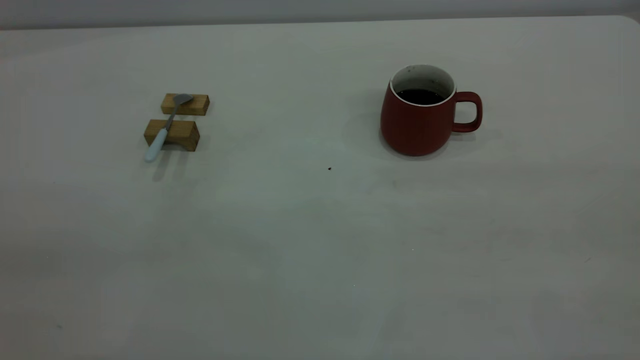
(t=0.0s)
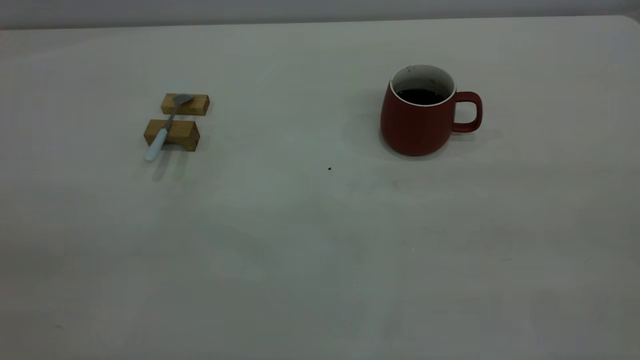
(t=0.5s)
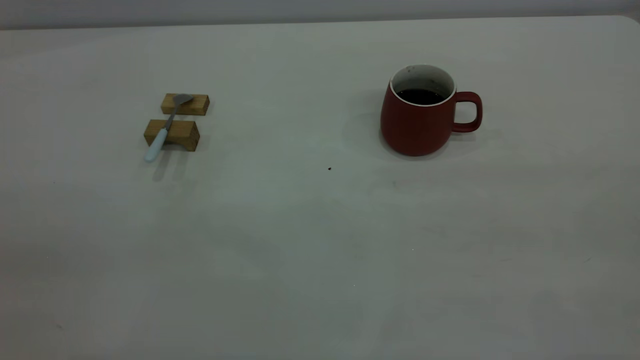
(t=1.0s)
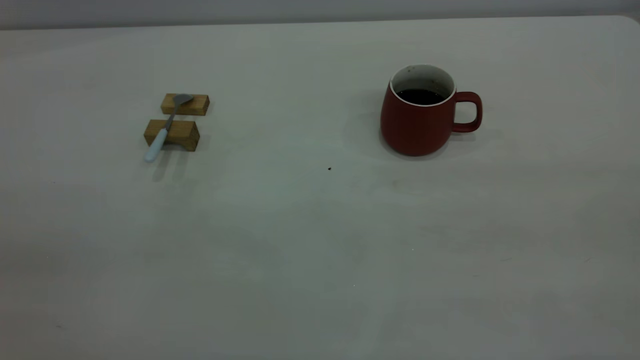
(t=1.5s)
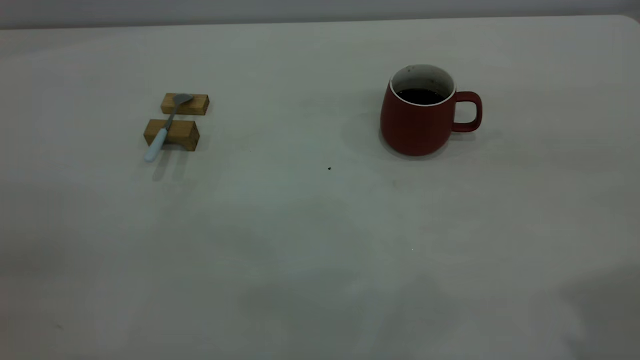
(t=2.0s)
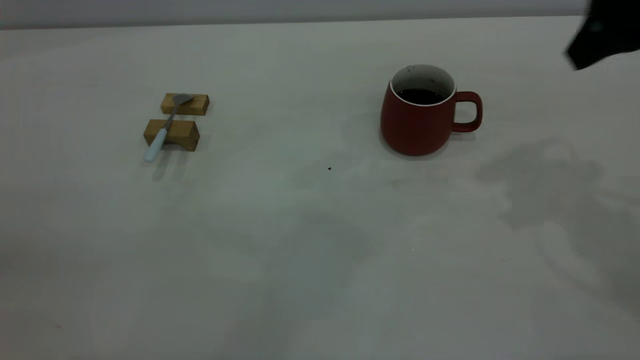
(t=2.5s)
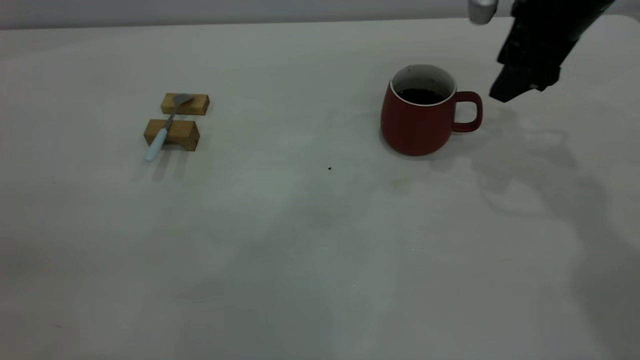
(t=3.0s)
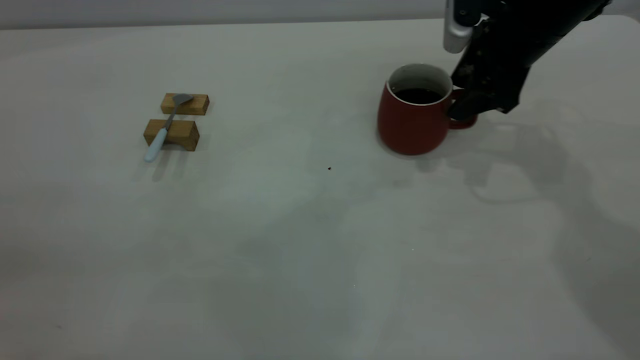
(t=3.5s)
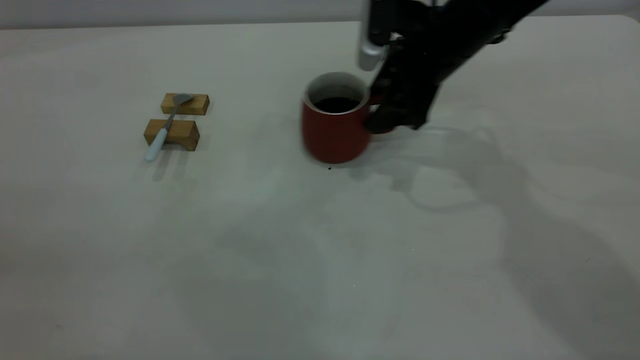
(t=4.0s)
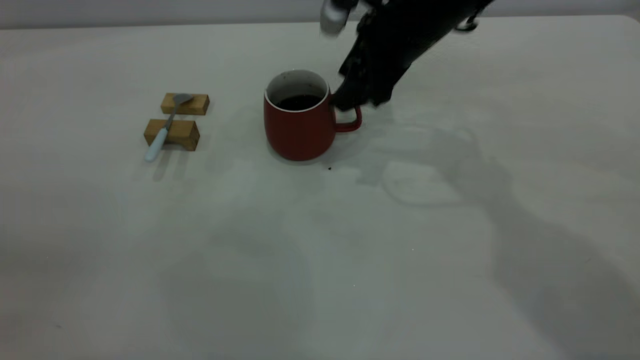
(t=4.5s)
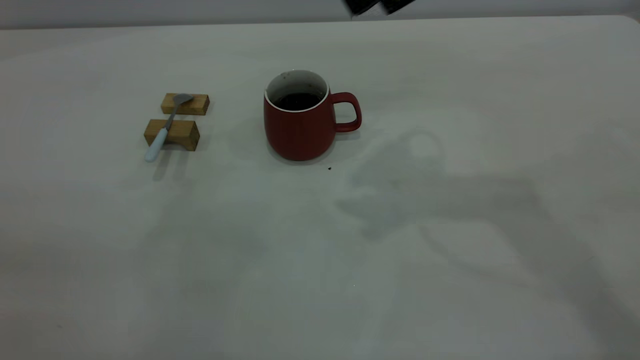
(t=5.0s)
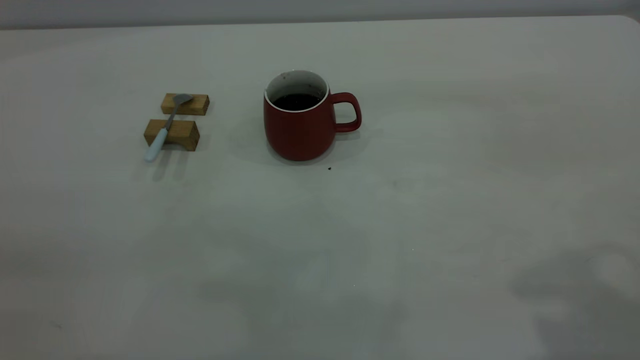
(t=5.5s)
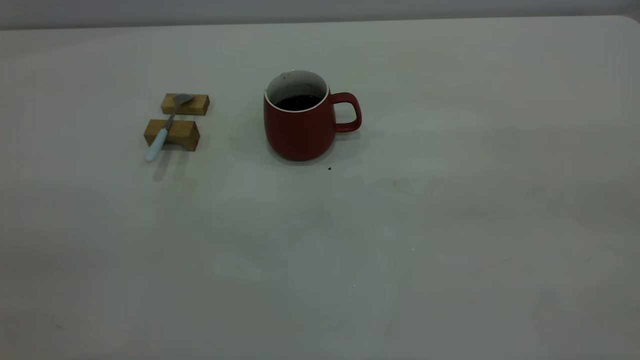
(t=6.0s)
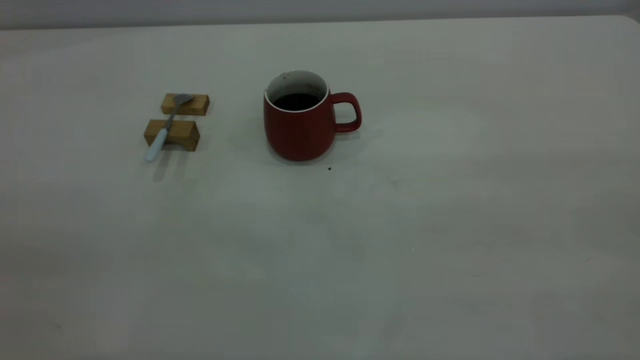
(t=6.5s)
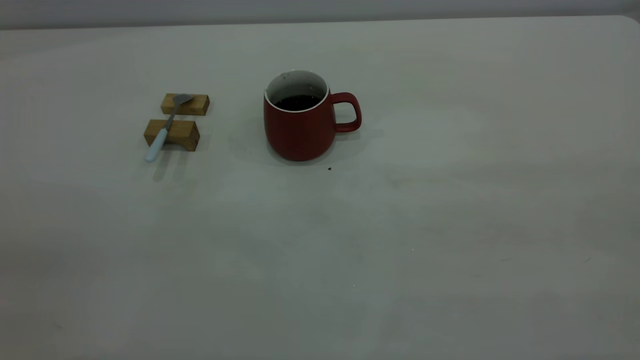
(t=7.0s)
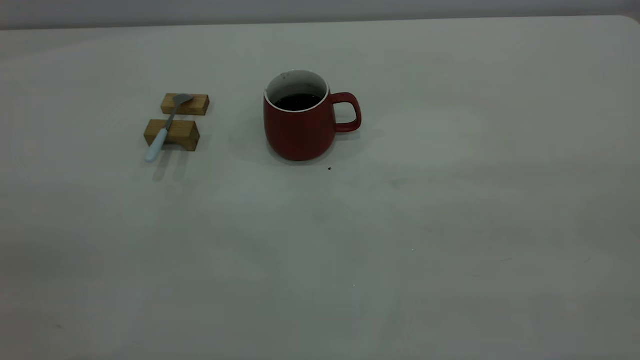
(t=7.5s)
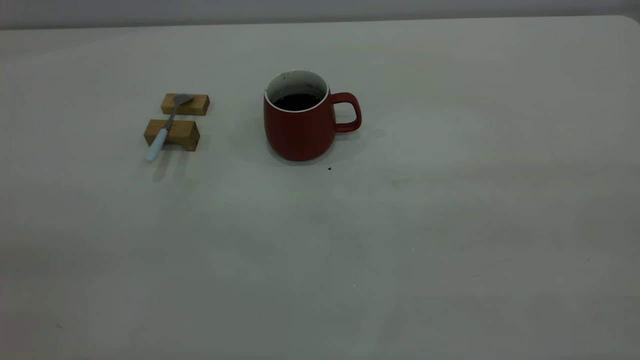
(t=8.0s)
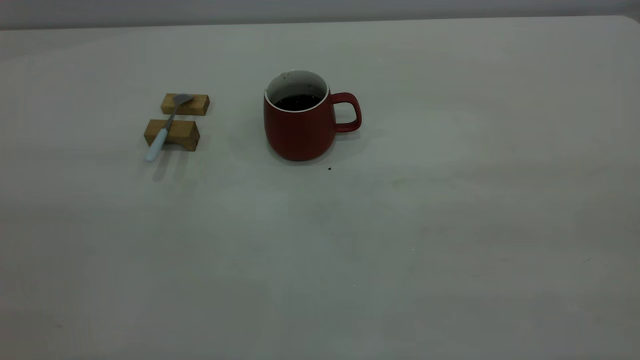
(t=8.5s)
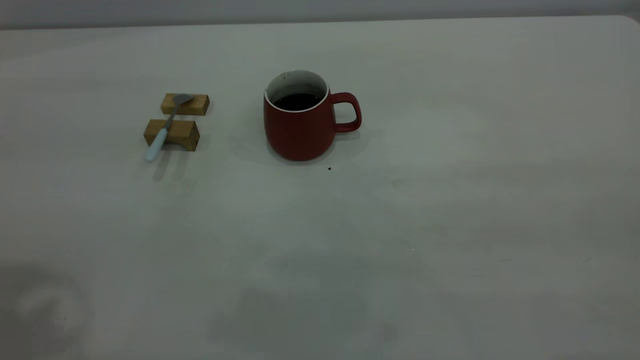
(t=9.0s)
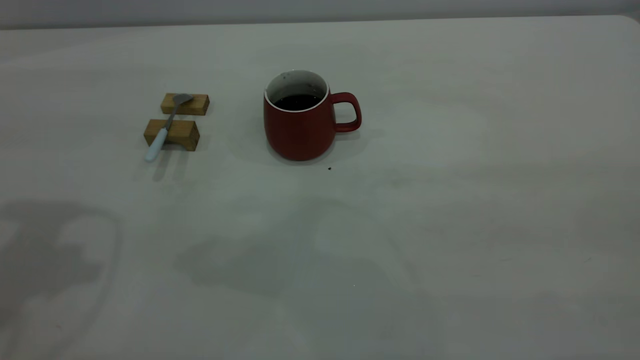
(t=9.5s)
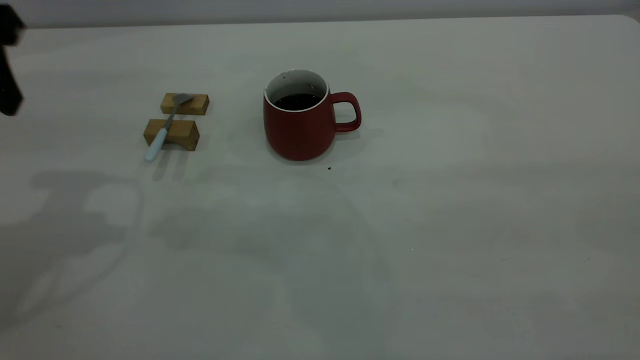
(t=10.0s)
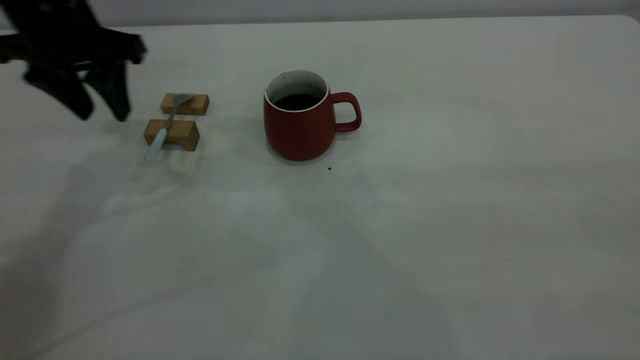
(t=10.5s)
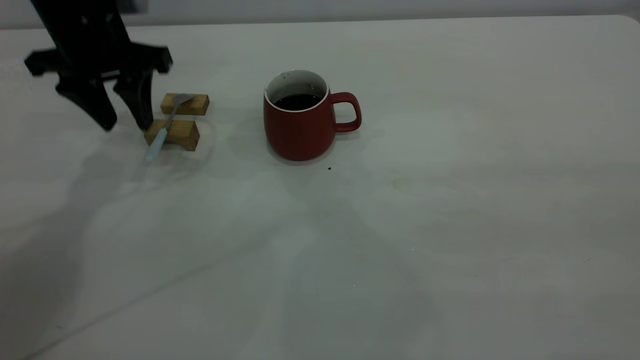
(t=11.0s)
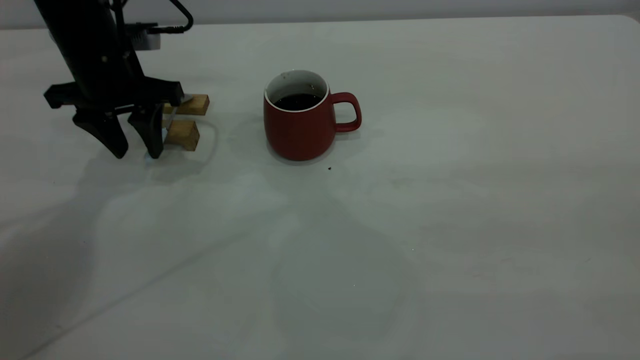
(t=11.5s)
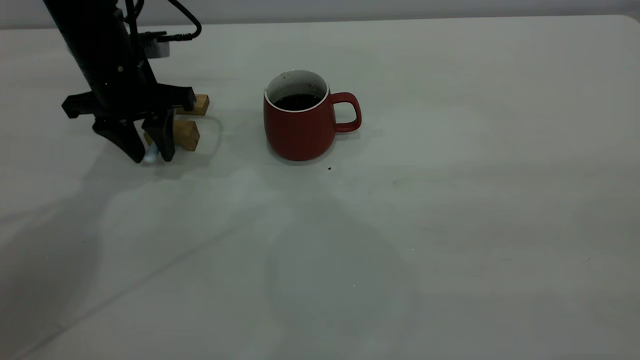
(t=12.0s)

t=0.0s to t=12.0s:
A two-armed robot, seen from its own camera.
Step, t=0.0s to t=4.5s: Move the cup with coffee to the center of view.
t=2.0s to t=4.0s: The right gripper heads forward, downward and to the left, covering some 40 cm.
t=4.0s to t=6.0s: The right gripper goes approximately 50 cm backward, upward and to the right.
t=8.0s to t=10.0s: The left gripper travels forward by roughly 30 cm, and opens up.
t=10.0s to t=12.0s: The left gripper heads downward and forward, covering roughly 20 cm.

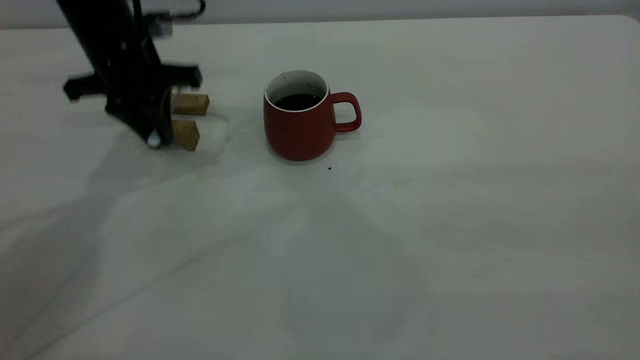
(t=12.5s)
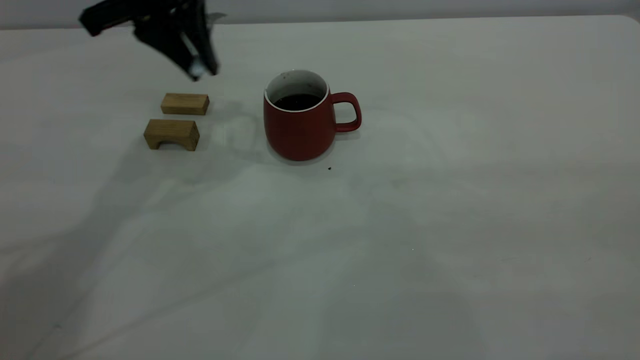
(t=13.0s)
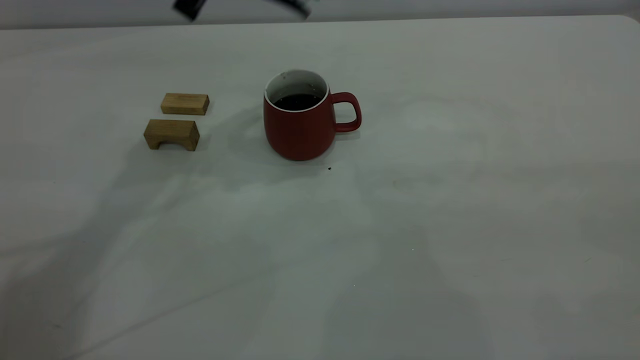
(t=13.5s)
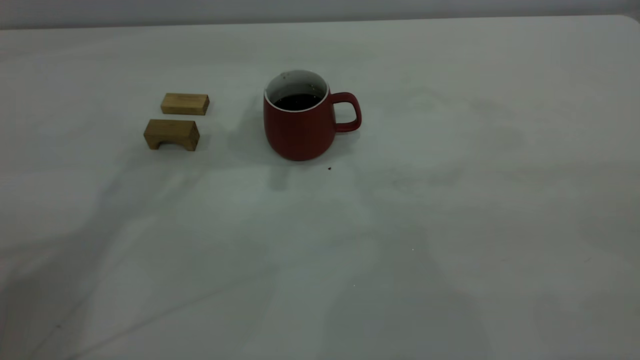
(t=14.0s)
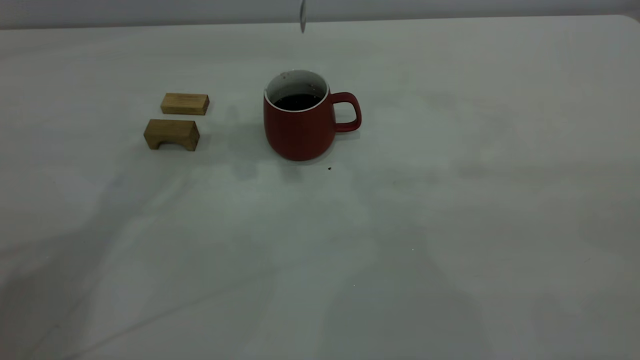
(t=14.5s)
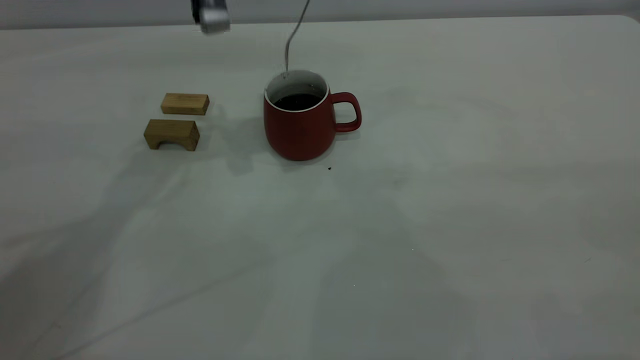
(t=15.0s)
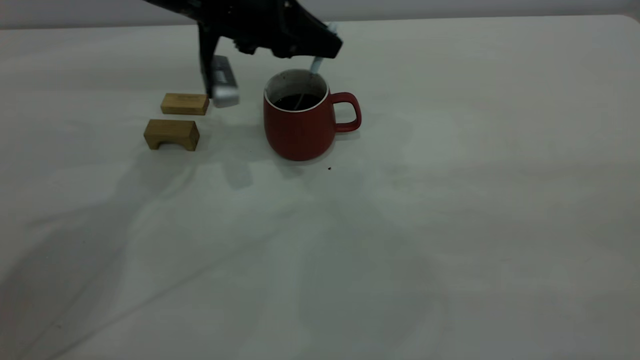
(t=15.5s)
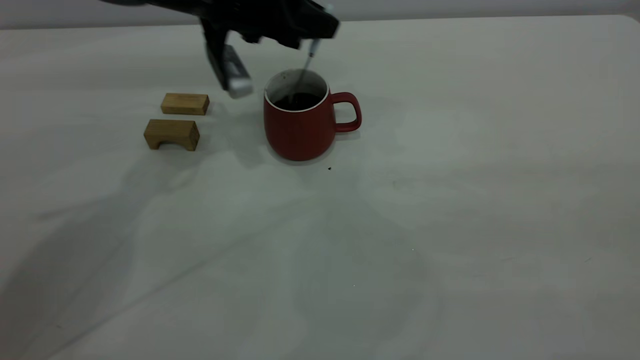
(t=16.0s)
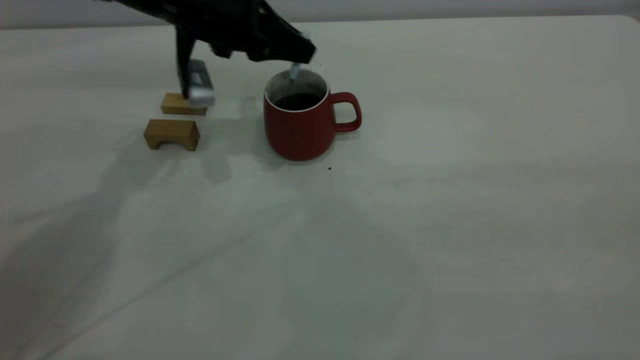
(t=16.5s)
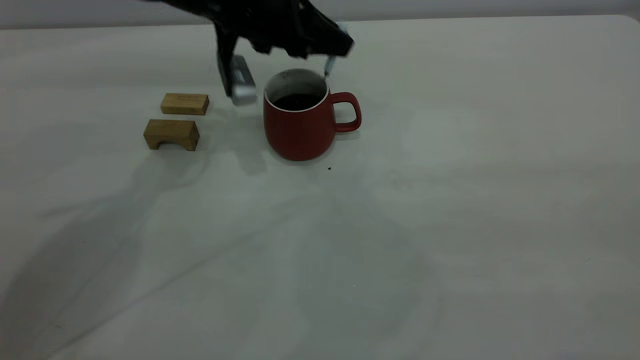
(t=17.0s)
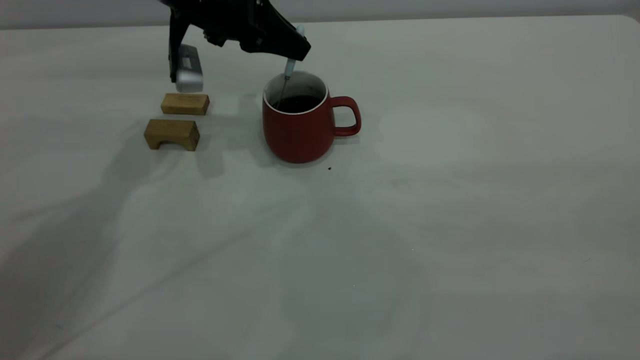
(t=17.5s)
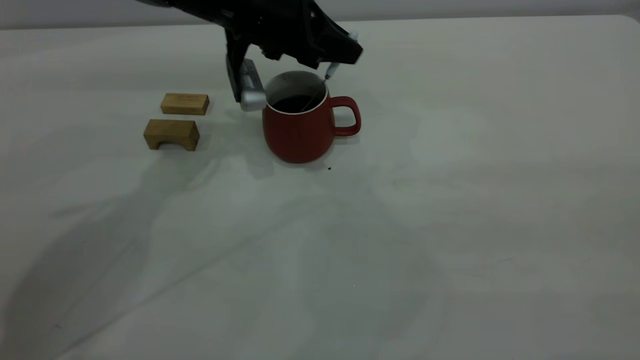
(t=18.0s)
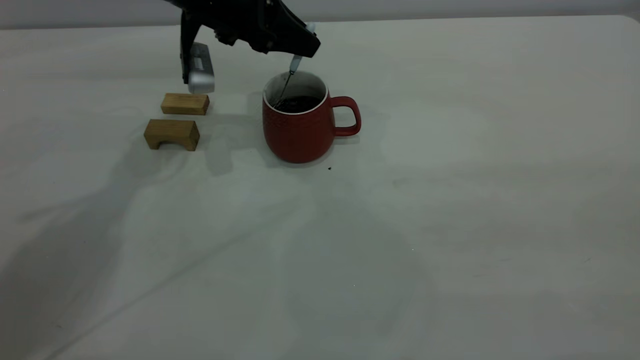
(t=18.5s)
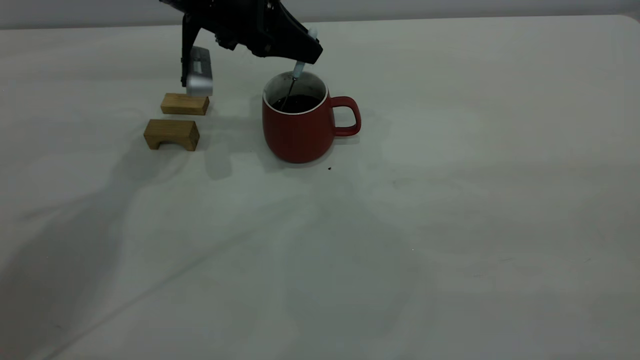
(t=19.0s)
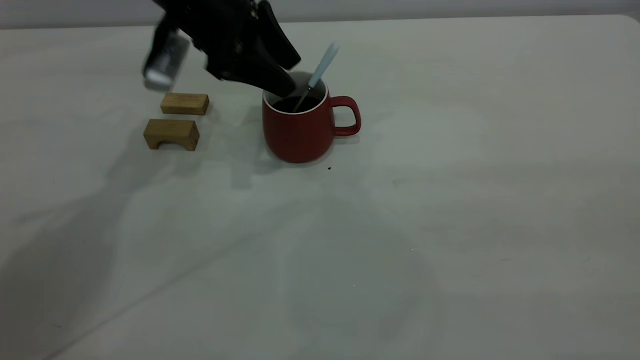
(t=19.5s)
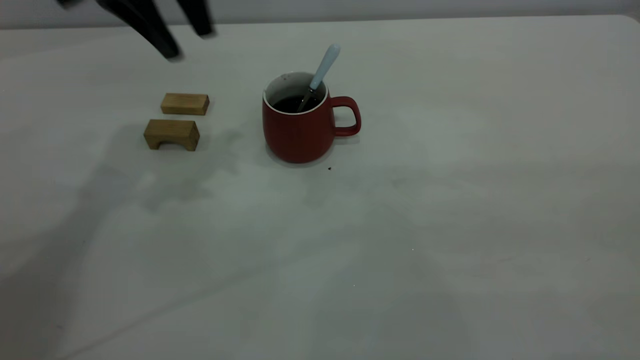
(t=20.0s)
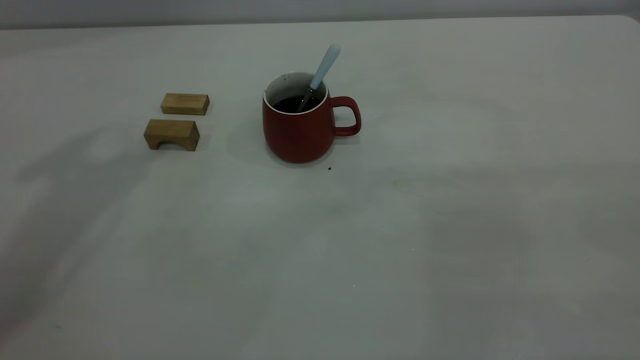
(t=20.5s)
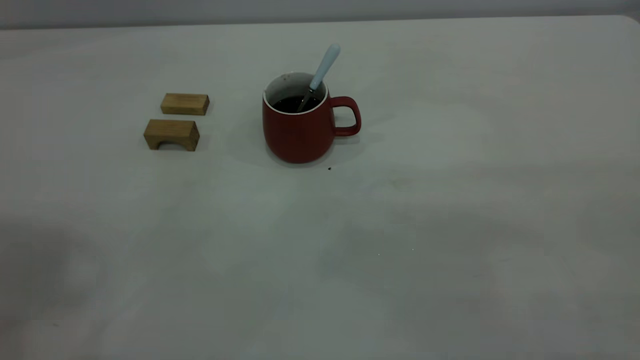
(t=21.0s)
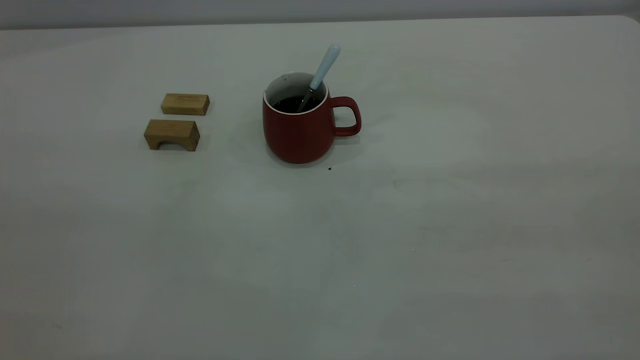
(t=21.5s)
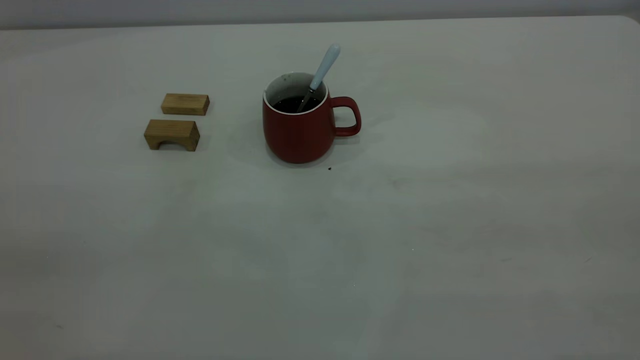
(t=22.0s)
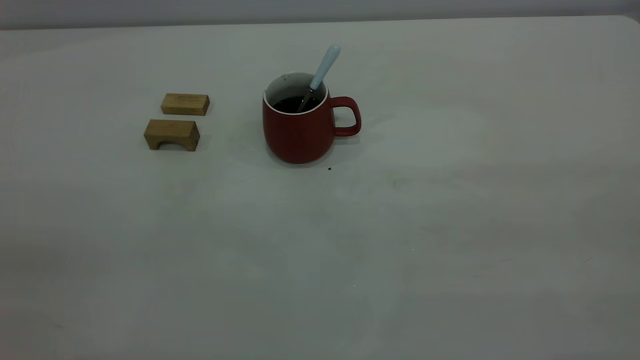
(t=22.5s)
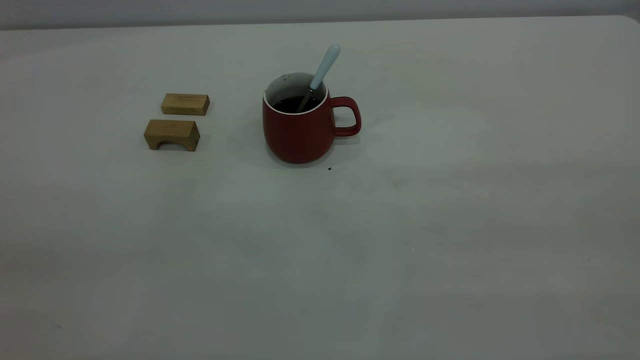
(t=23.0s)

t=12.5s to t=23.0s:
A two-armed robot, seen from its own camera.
Step, t=13.0s to t=19.5s: Stir the coffee in the cup.
t=12.5s to t=14.5s: The left gripper is displaced upward and to the right by roughly 15 cm.
t=14.5s to t=16.5s: The left gripper goes roughly 15 cm downward.
t=16.5s to t=19.0s: The left gripper swings left and right, roughly 5 cm each way, with 3 reversals.
t=19.0s to t=21.0s: The left gripper moves upward and backward, about 50 cm, and opens up.
